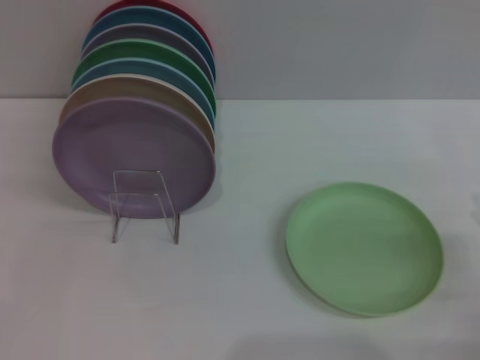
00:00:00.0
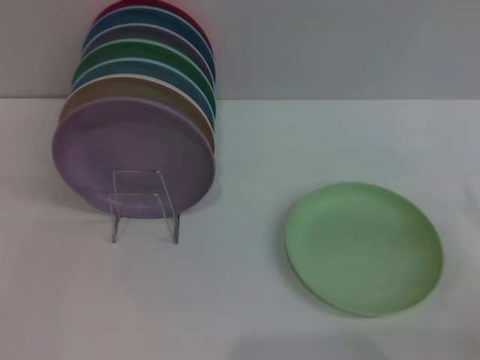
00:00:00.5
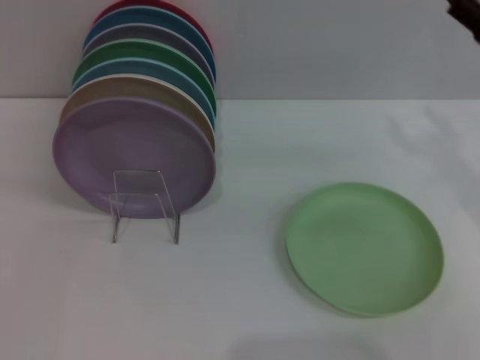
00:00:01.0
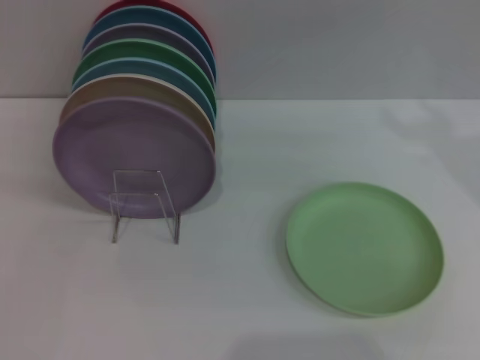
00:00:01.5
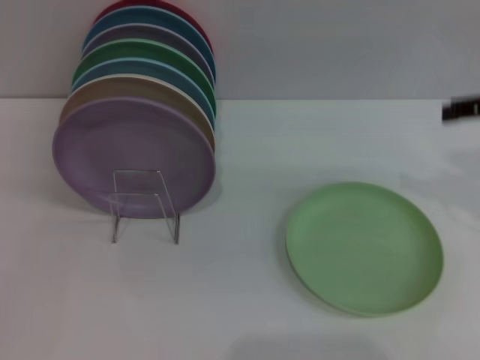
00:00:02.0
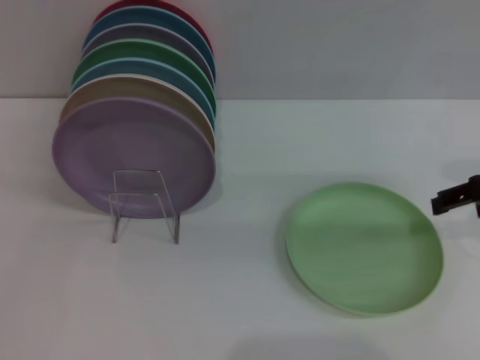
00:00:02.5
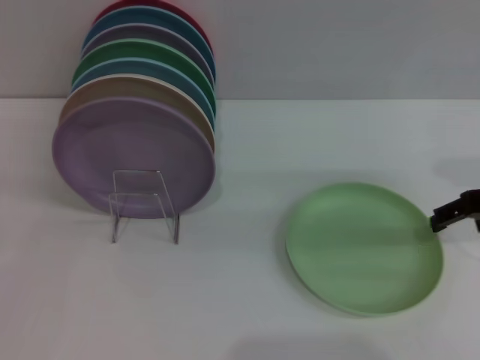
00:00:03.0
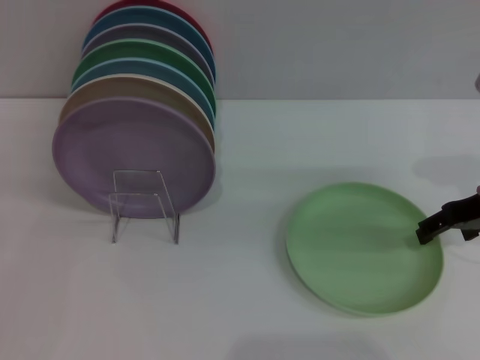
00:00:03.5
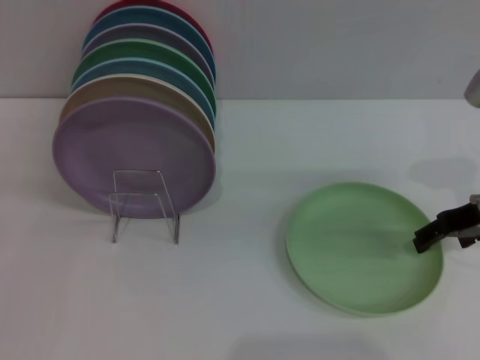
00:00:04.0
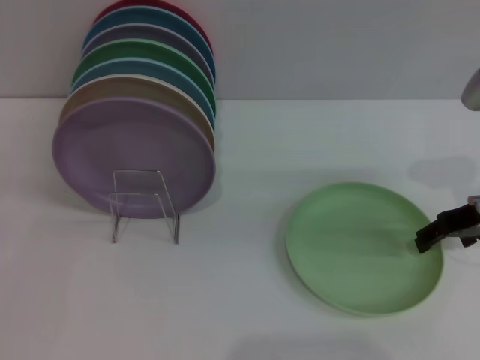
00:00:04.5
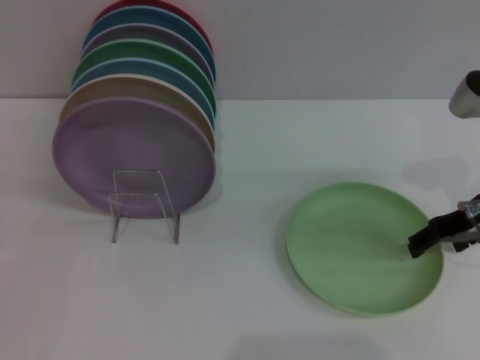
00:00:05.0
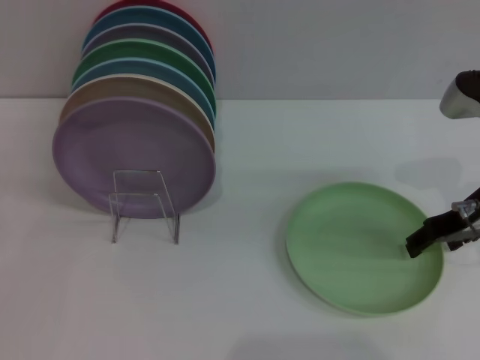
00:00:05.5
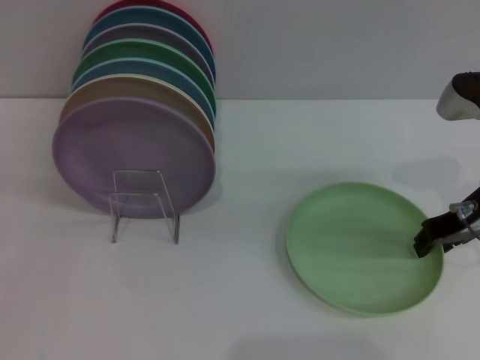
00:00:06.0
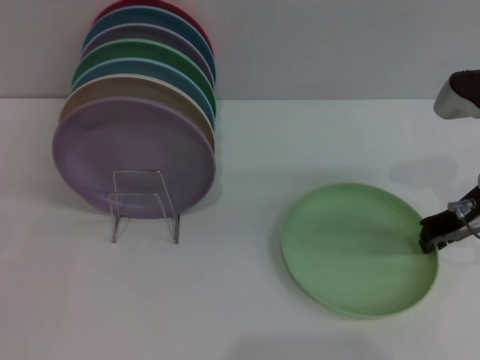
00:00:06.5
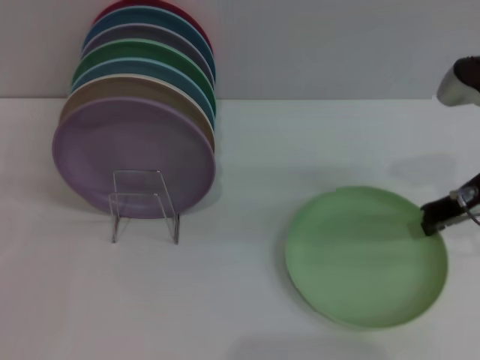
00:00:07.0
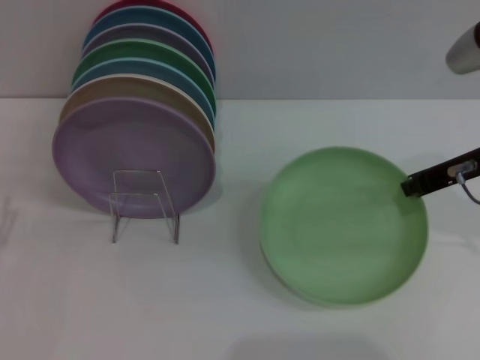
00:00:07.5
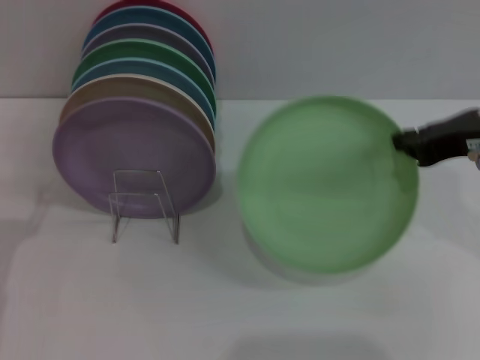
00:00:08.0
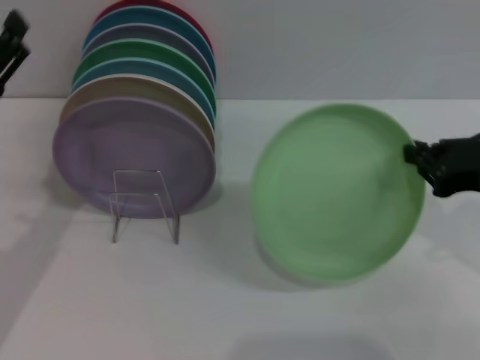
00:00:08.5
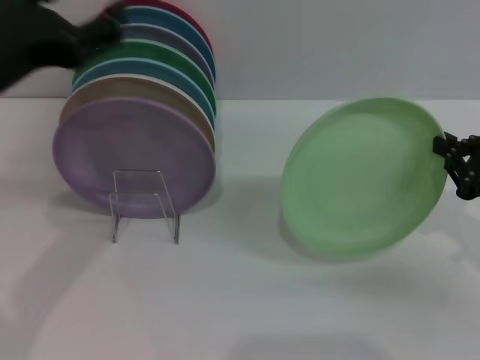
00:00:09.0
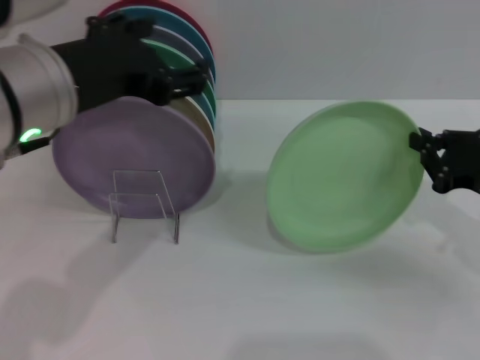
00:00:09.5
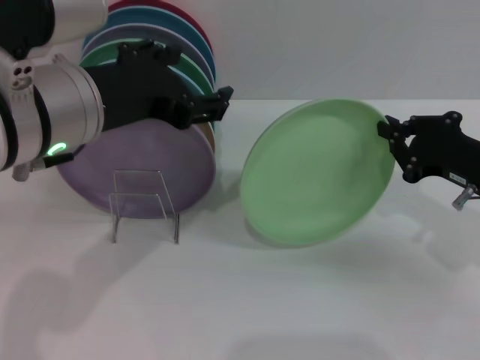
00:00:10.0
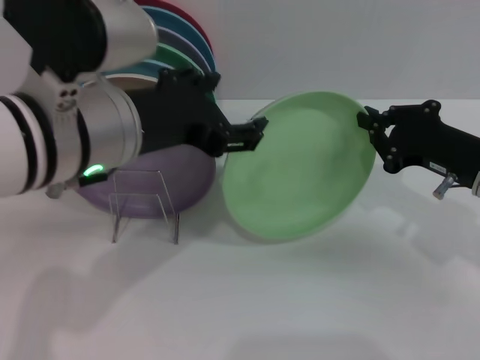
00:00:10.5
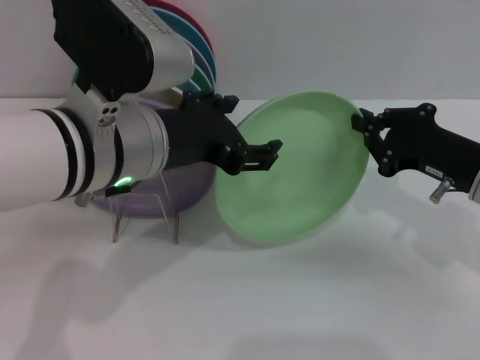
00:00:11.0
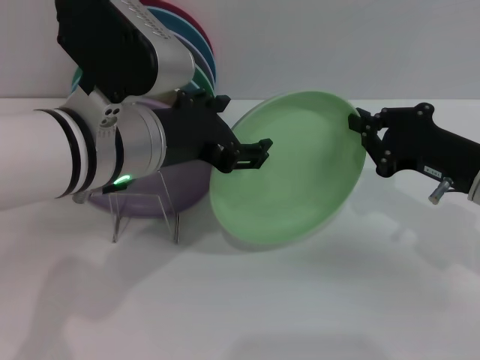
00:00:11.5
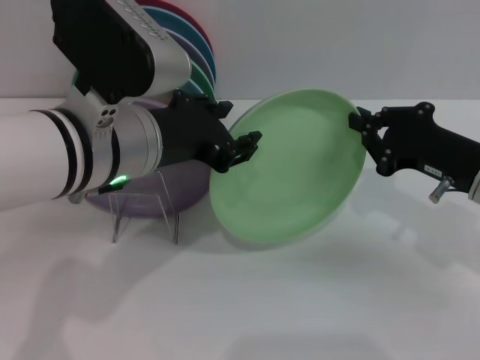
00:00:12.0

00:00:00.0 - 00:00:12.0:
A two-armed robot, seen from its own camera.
Task of the whole recording: Grip the plate with one hand, pass it to the other, then set it on the shelf.
Step, 00:00:00.0 - 00:00:07.5: Pick up the plate with the right gripper.
00:00:00.0 - 00:00:02.0: The right gripper shifts some 25 cm upward and forward.
00:00:02.0 - 00:00:04.0: The right gripper is displaced downward by about 10 cm.
00:00:04.0 - 00:00:06.0: The right gripper closes.
00:00:06.0 - 00:00:08.0: The left gripper shifts by some 5 cm. Meanwhile the right gripper heads upward and backward, covering about 10 cm, and closes.
00:00:08.0 - 00:00:10.0: The right gripper is displaced downward by about 10 cm. Meanwhile the left gripper travels upward and to the right by roughly 25 cm.

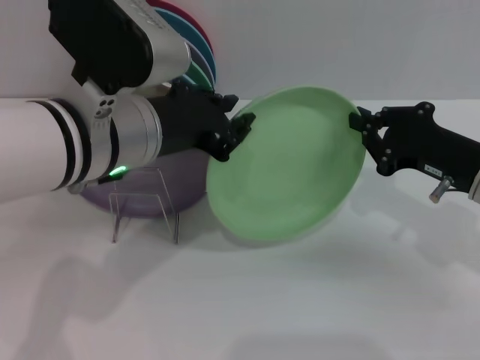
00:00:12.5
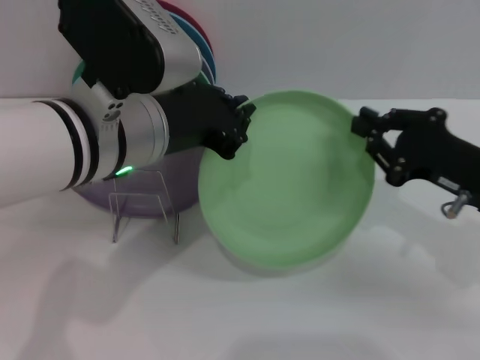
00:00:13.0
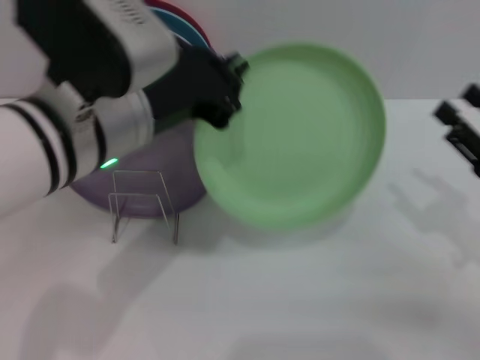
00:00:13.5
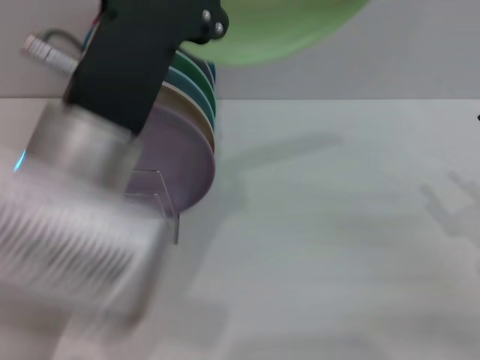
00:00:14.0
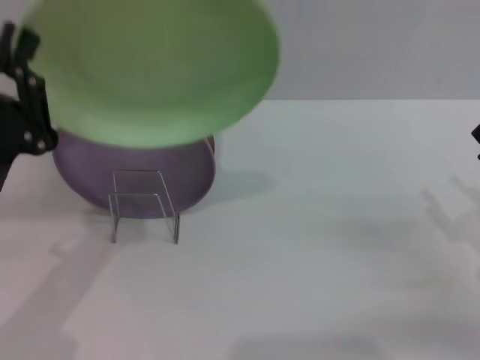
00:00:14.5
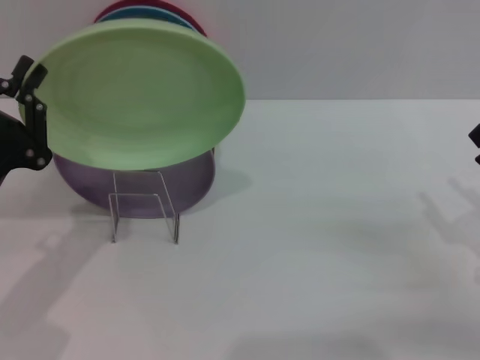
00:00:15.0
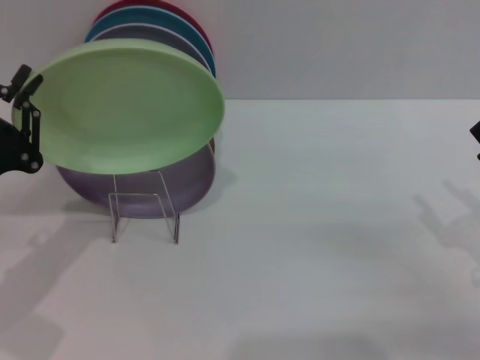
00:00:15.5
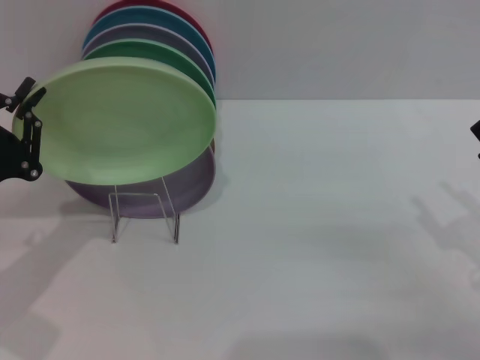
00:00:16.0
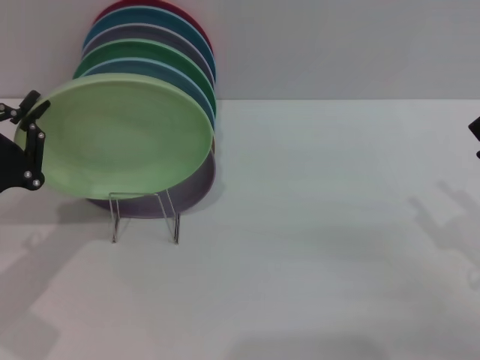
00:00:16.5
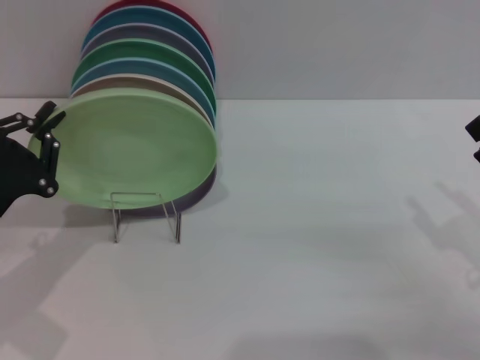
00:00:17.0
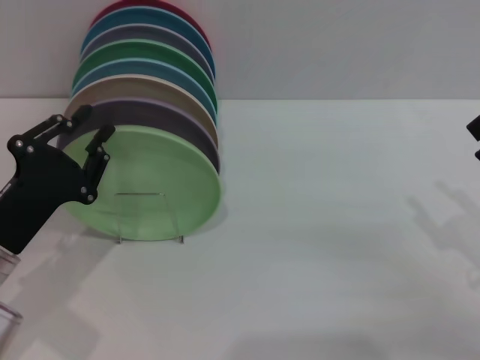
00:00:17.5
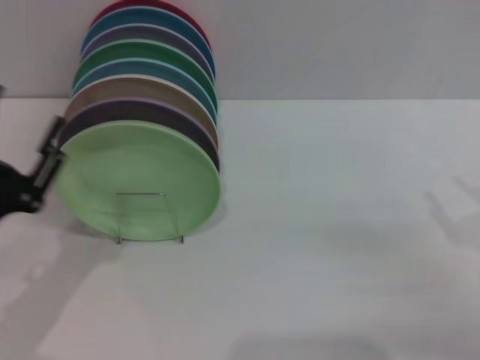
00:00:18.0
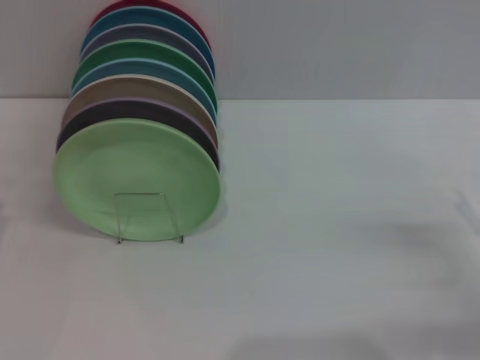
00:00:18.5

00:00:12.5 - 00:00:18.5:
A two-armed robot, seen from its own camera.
Task of the whole recording: Grip the plate with one hand, pass it to the other, then set it on the shelf.
Step, 00:00:13.5 - 00:00:17.5: Place the plate on the shelf with the left gripper.
00:00:12.5 - 00:00:14.5: The left gripper moves to the left, downward and backward, some 15 cm, and closes its fingers; the right gripper moves backward and to the right, roughly 10 cm, and opens its fingers.
00:00:14.5 - 00:00:16.5: The left gripper is displaced to the left by some 5 cm.
00:00:16.5 - 00:00:18.5: The left gripper travels backward by approximately 5 cm, and opens its fingers.

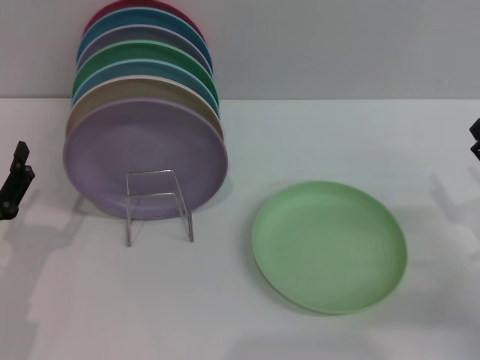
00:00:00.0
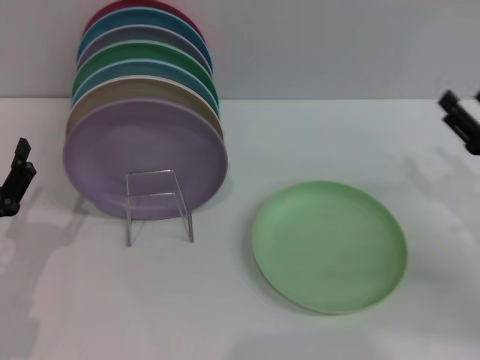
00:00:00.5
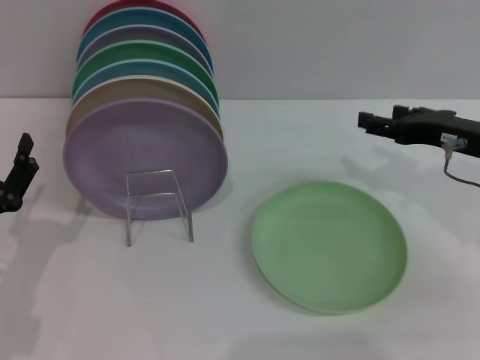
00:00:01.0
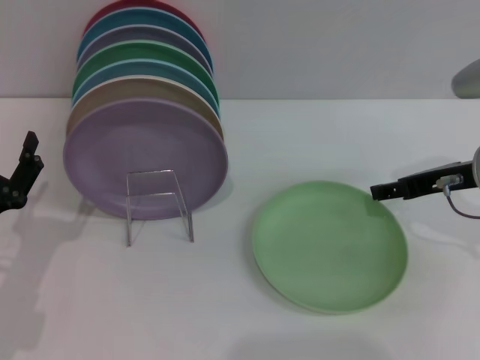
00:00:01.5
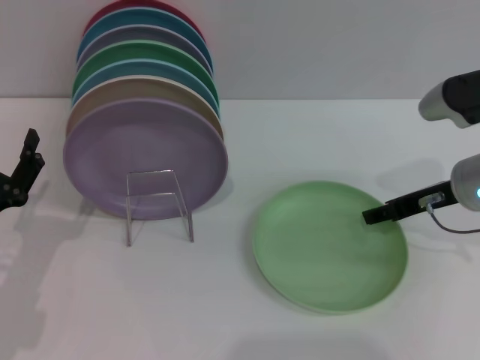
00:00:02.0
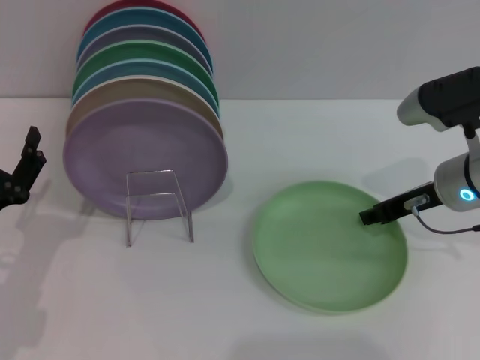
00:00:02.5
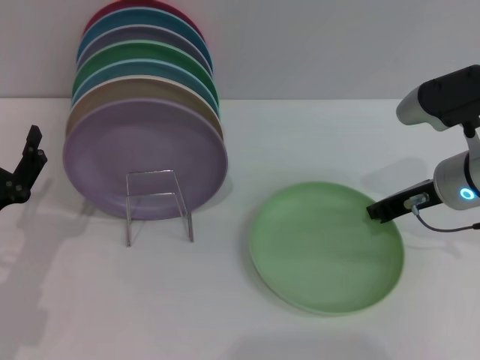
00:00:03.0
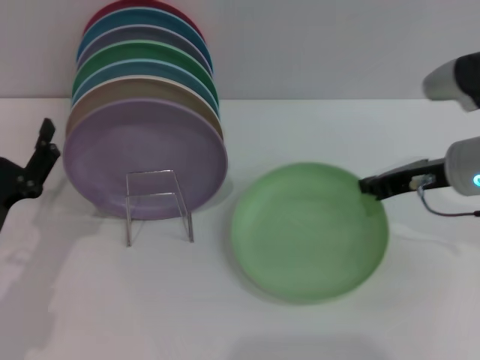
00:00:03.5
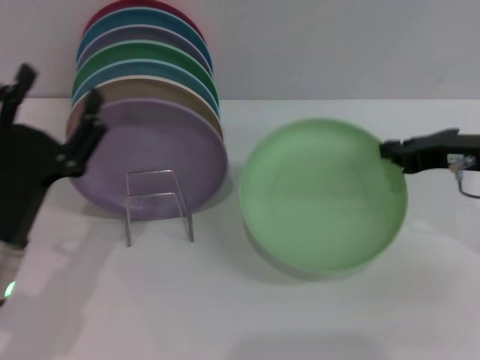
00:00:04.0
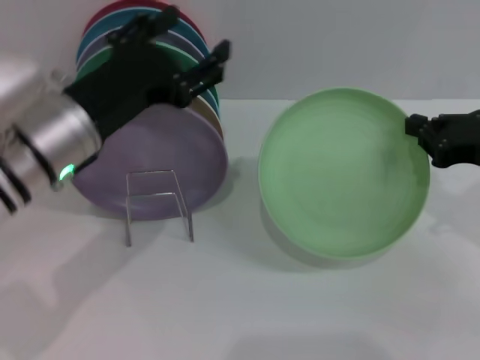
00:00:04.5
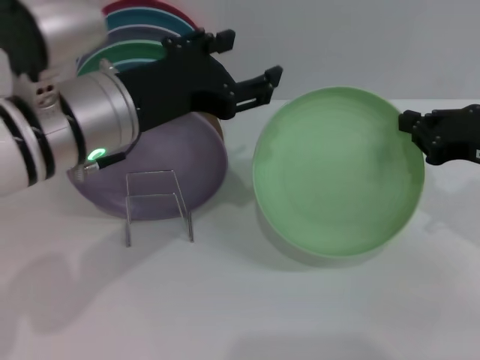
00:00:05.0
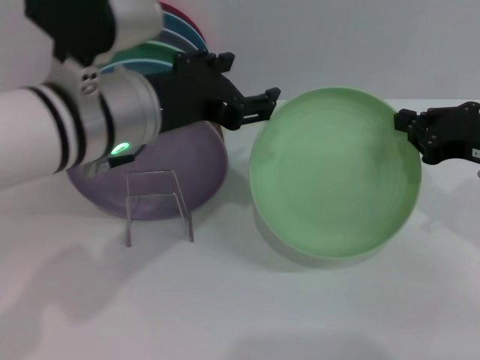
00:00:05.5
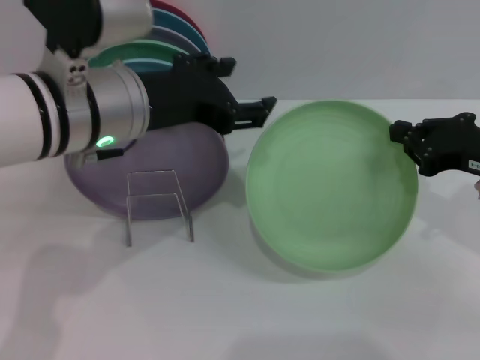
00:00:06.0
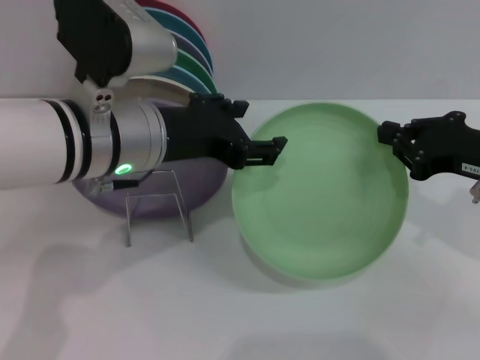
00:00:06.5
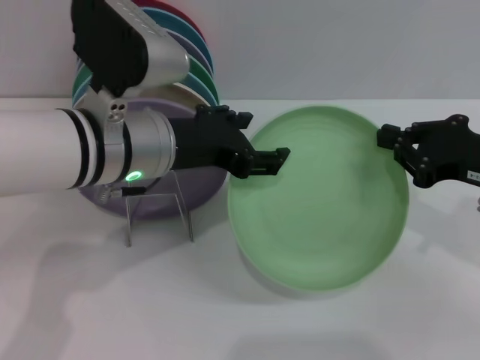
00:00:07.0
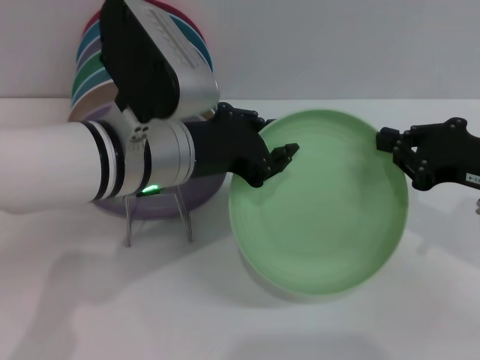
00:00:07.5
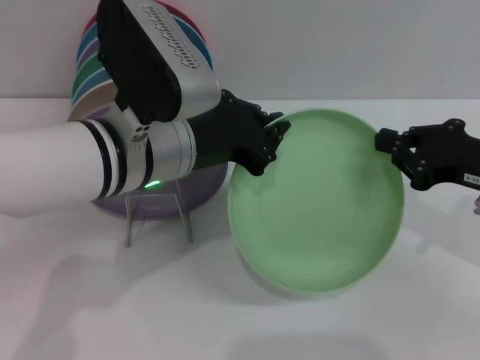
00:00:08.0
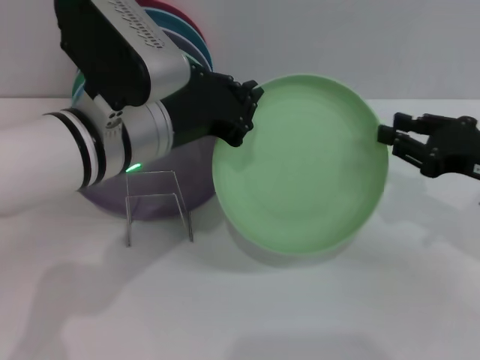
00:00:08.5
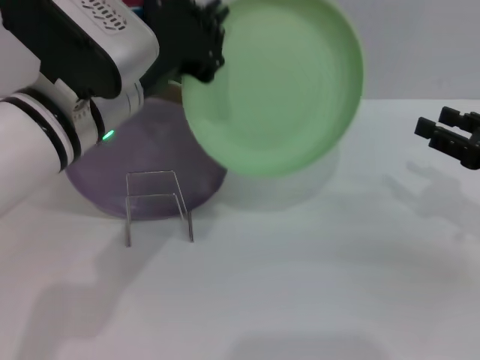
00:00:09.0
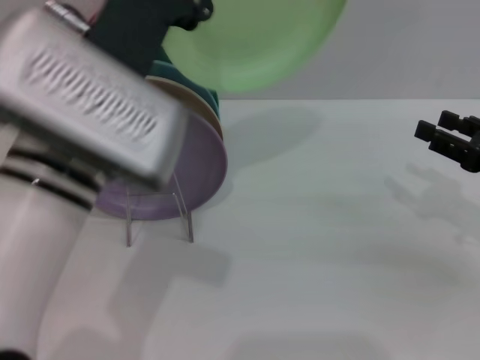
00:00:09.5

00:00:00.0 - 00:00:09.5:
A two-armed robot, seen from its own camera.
Task of the whole recording: Grip the plate with one hand, pass it to the other, then set it on the shelf.
Step, 00:00:00.0 - 00:00:03.5: Pick up the plate with the right gripper.
Step, 00:00:04.5 - 00:00:08.5: Pass the plate from the right gripper to the left gripper.
00:00:00.0 - 00:00:02.0: The right gripper is displaced forward, to the left and upward by roughly 15 cm.
00:00:02.0 - 00:00:04.0: The left gripper travels to the right by some 5 cm, while the right gripper changes place by roughly 5 cm, and closes.
00:00:04.0 - 00:00:05.5: The left gripper is displaced upward, to the right and forward by approximately 20 cm.
00:00:07.5 - 00:00:09.5: The left gripper changes place by roughly 5 cm, and closes; the right gripper goes approximately 5 cm to the right, and opens its fingers.
